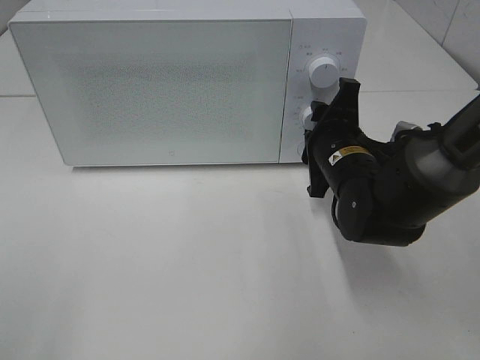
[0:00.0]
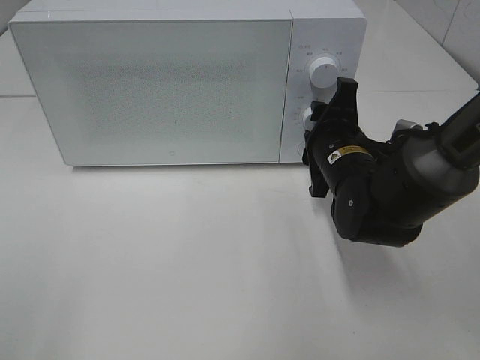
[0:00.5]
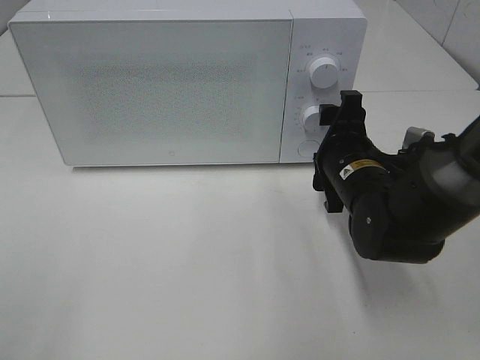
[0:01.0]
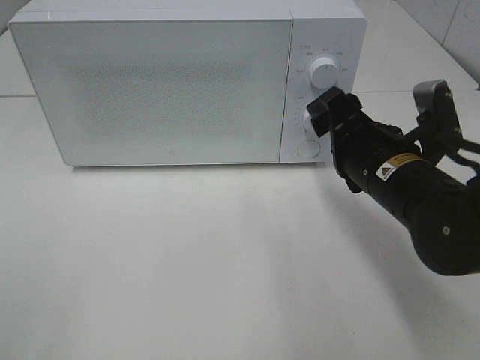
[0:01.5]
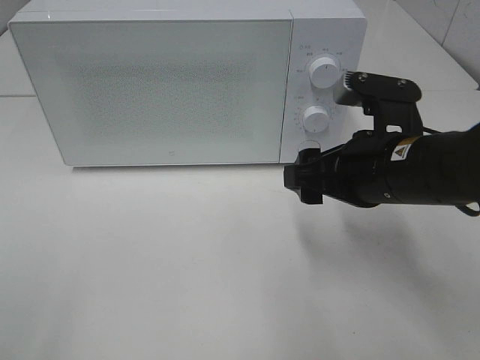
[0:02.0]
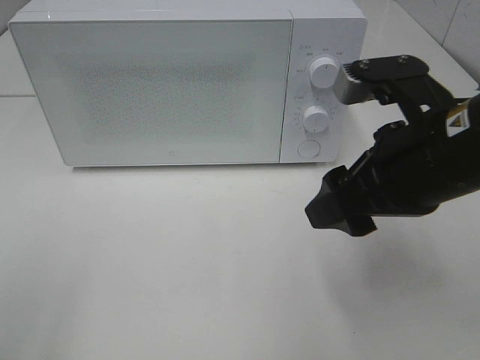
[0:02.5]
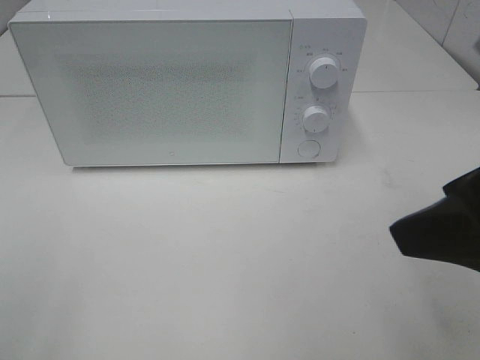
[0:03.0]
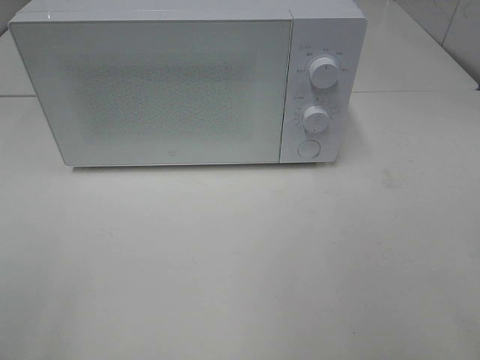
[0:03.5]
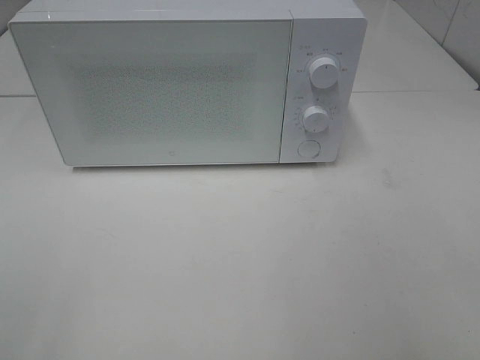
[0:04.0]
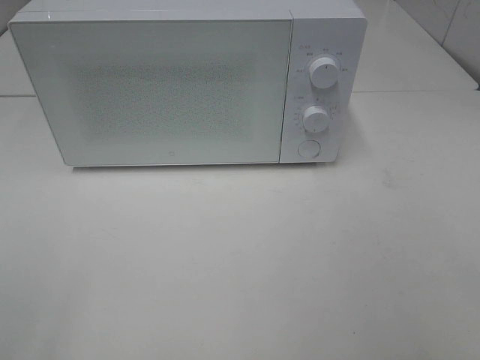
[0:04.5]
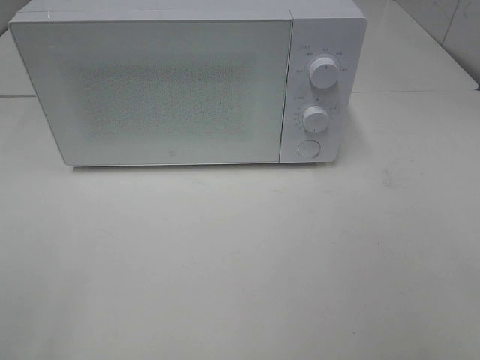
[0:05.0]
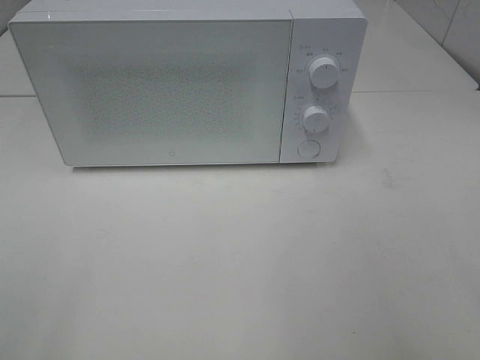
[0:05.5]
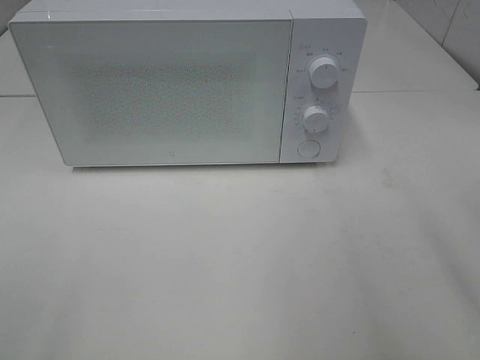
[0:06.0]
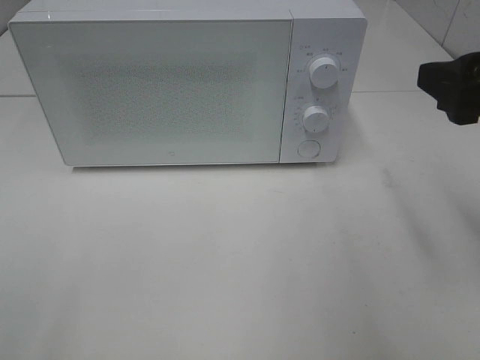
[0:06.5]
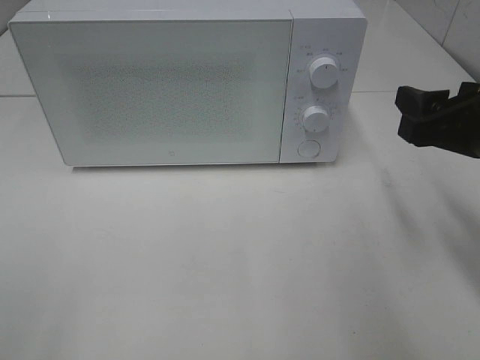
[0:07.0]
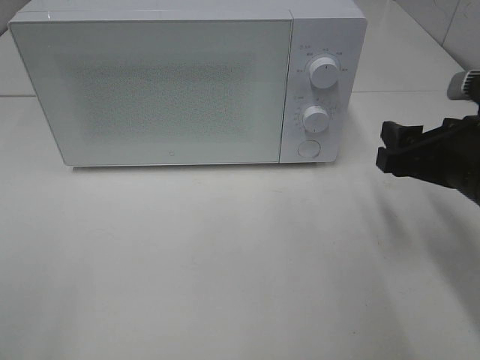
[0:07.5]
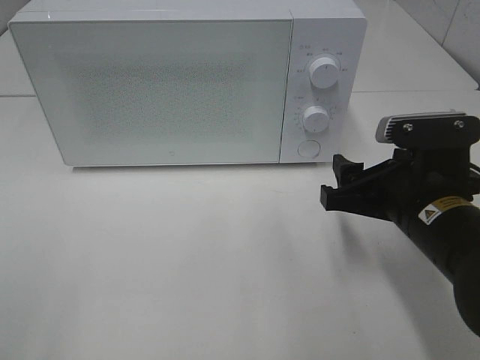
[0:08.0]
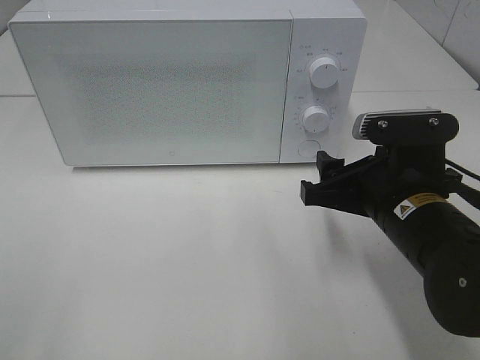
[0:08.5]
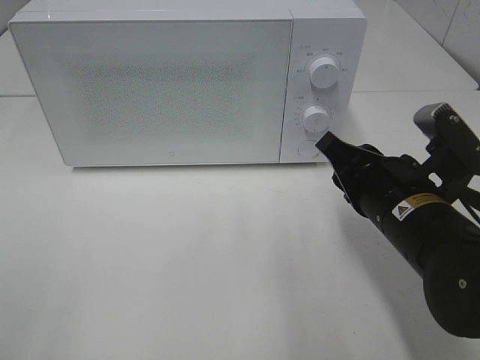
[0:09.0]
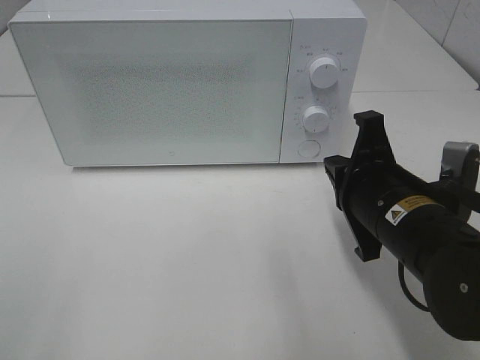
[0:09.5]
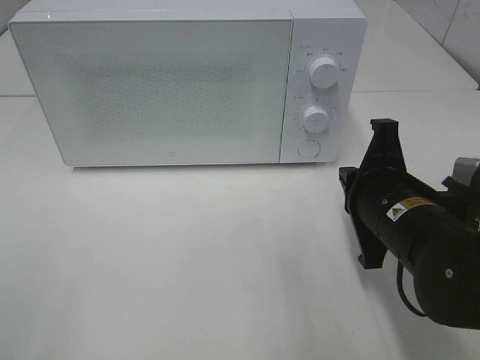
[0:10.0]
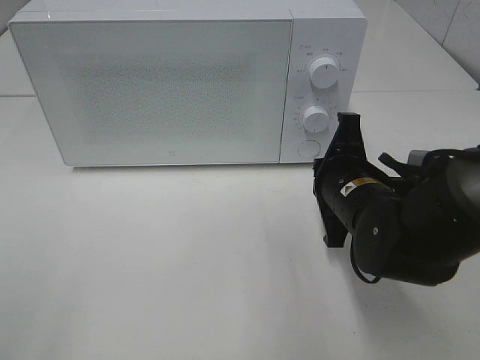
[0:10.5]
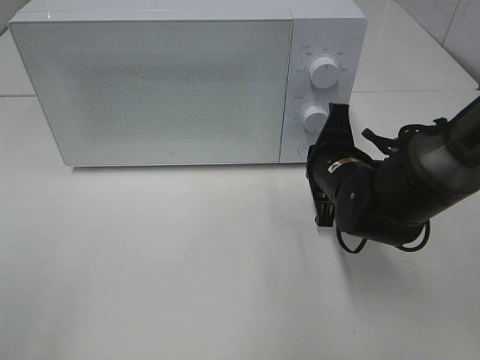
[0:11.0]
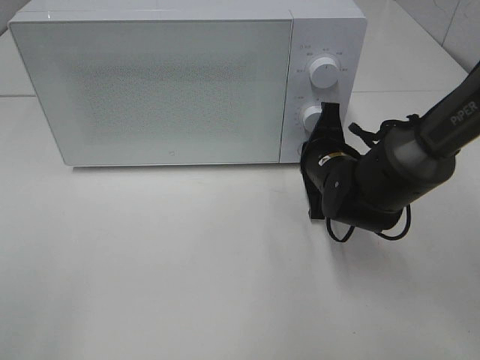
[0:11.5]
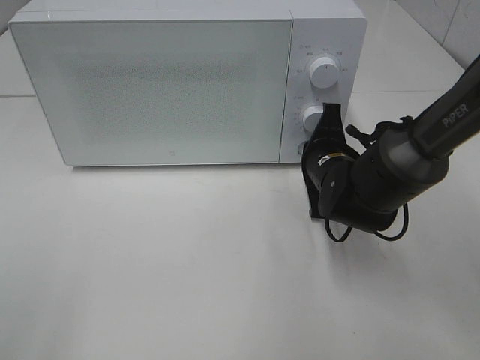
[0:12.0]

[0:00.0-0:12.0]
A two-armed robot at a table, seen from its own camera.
Task of the whole recording: Heat the burger.
0:00.0 to 0:02.0: The right gripper travels backward and upward by about 10 cm, and opens its fingers.
0:02.0 to 0:04.0: The right gripper goes approximately 30 cm backward, to the right and upward.
0:06.0 to 0:08.0: The right gripper travels downward, forward and to the left by roughly 20 cm.
0:08.0 to 0:10.0: The right gripper closes up.
0:10.0 to 0:12.0: The right gripper shifts about 15 cm forward and downward.

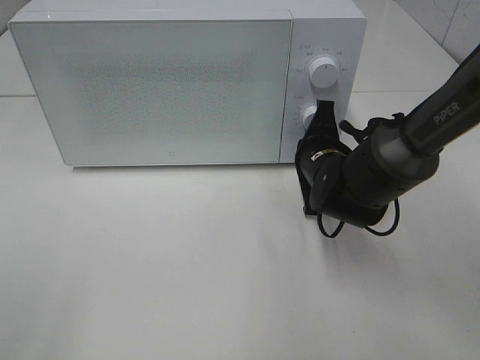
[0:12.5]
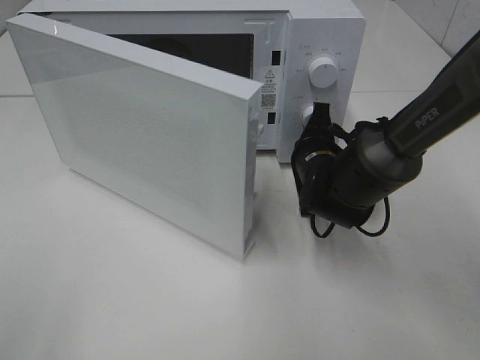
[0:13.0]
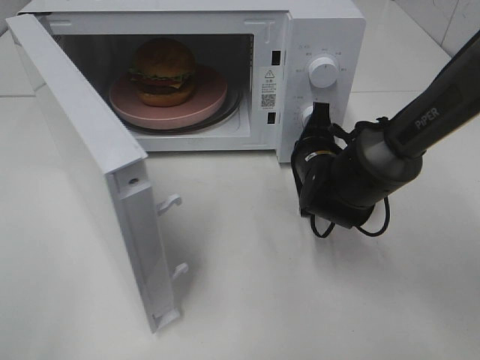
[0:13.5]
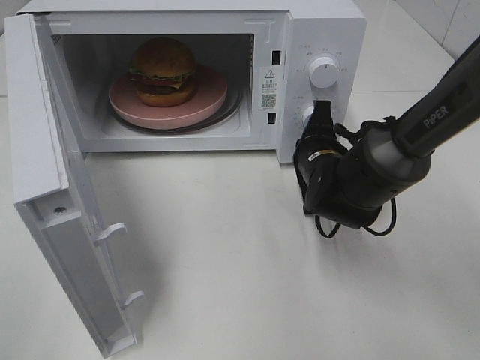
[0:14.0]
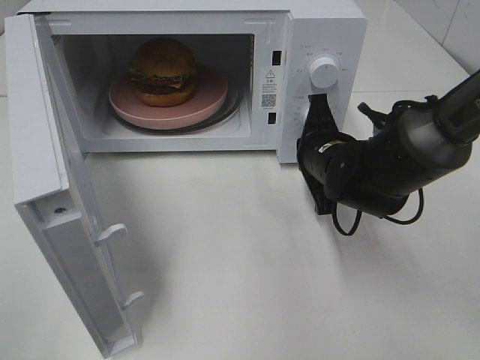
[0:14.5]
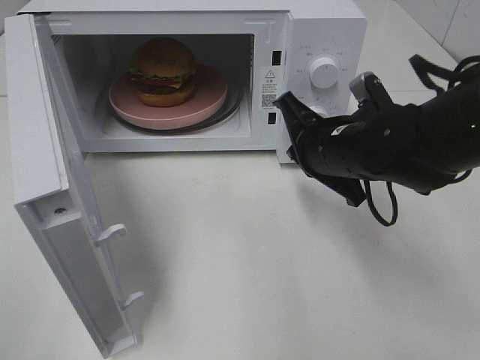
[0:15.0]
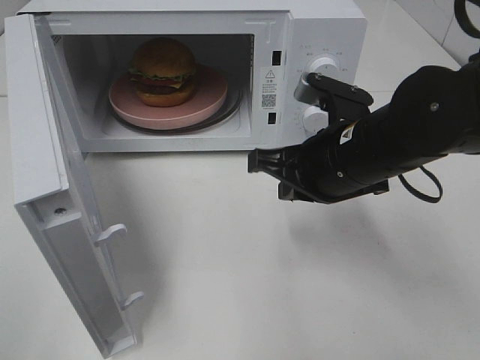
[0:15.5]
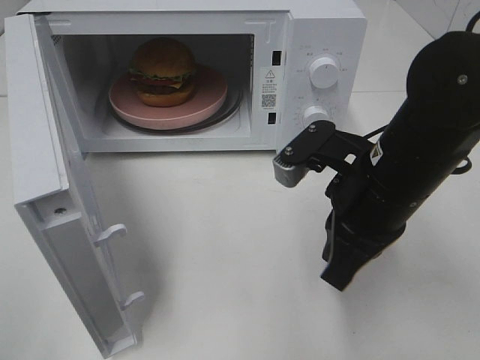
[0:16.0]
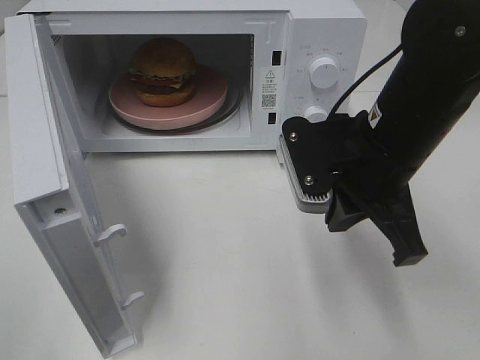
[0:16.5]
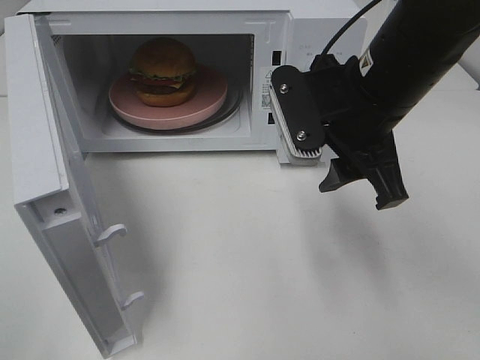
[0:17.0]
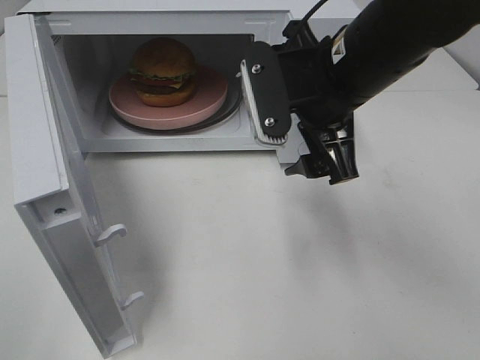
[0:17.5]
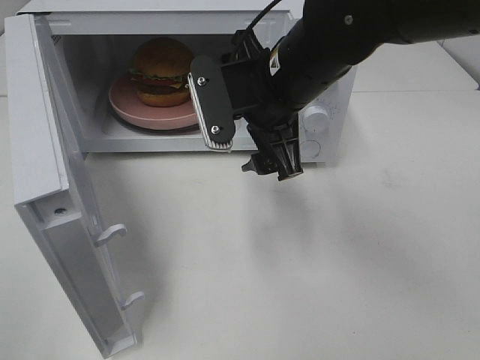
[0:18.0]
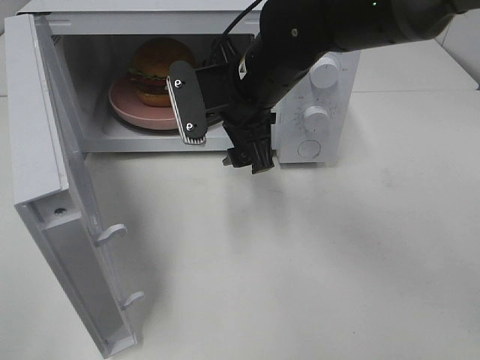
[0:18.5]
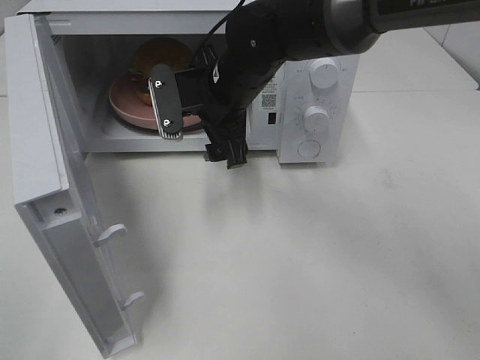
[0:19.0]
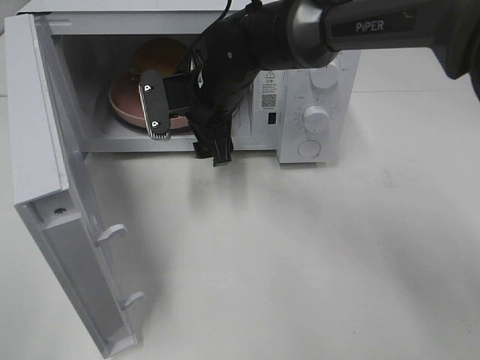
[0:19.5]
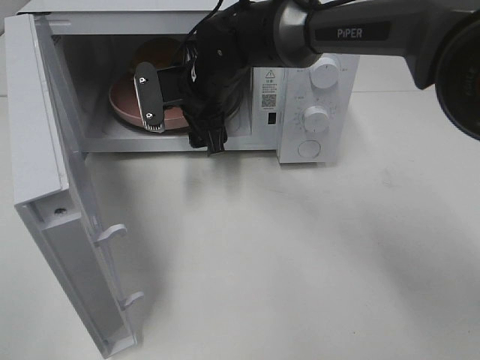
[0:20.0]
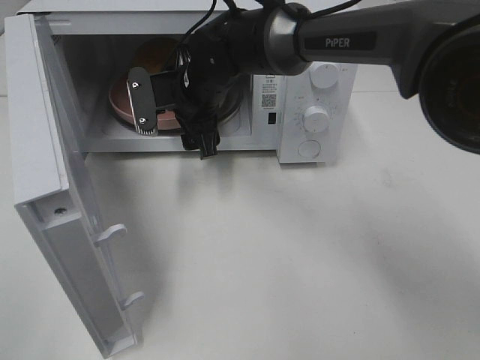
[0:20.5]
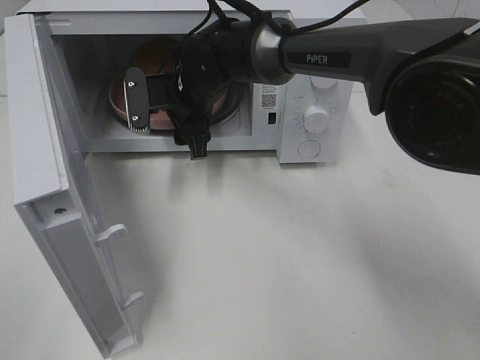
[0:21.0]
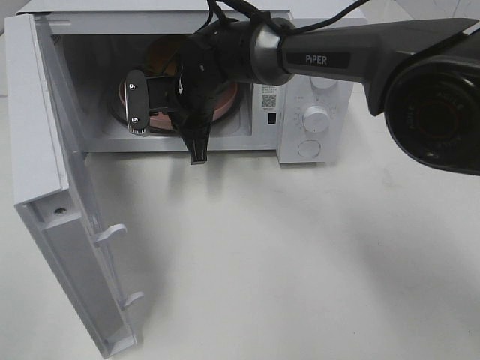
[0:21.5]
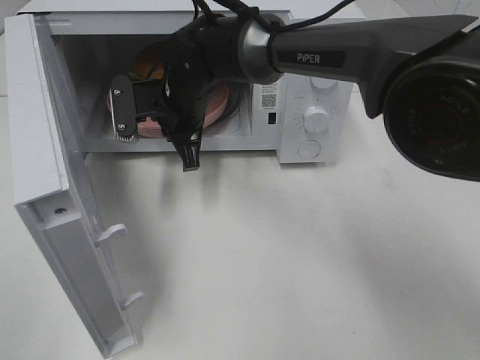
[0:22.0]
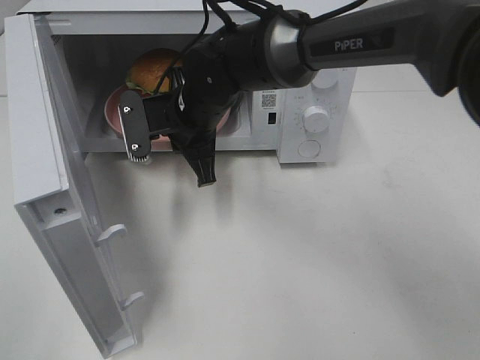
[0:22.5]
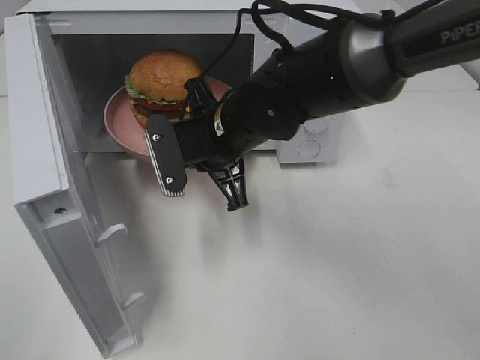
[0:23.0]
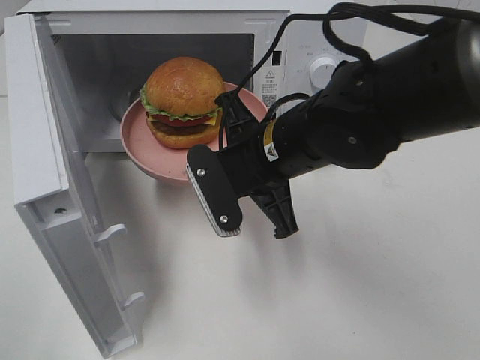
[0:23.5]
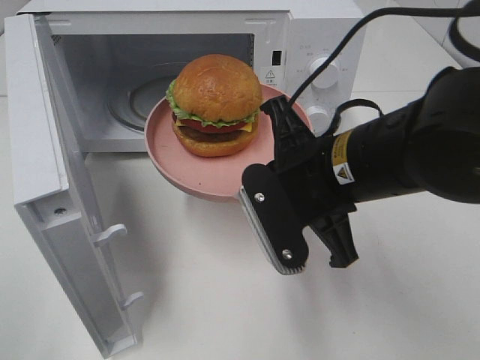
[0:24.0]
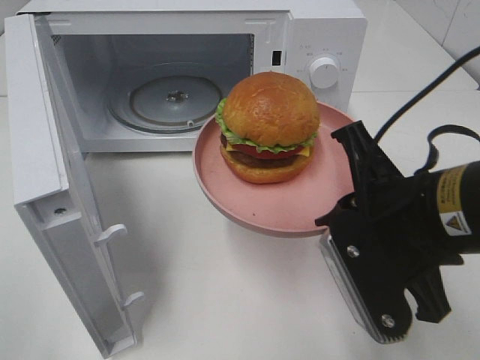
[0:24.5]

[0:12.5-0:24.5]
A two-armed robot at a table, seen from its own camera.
Task of the whole recording: Heat the burger.
Step, 0:12.5 to 0:14.5: Right hand: press the switch.
Step, 0:15.0 to 0:21.0: Right hand: grab the plate with the hamburger.
0:14.5 to 0:16.5: The right gripper is displaced upward and backward by roughly 15 cm.
0:16.5 to 0:18.5: The right gripper shifts some 15 cm to the left and forward, and opens up.
0:18.5 to 0:20.5: The right gripper heads forward and to the left, covering approximately 10 cm.
0:20.5 to 0:22.5: The right gripper closes its fingers.
0:22.5 to 0:24.5: The right gripper is displaced backward and to the right by some 30 cm.

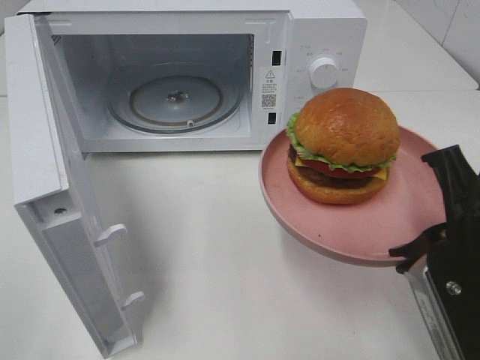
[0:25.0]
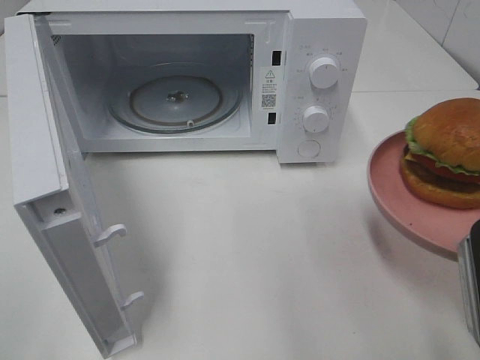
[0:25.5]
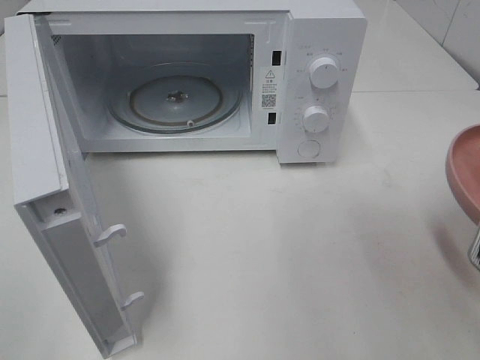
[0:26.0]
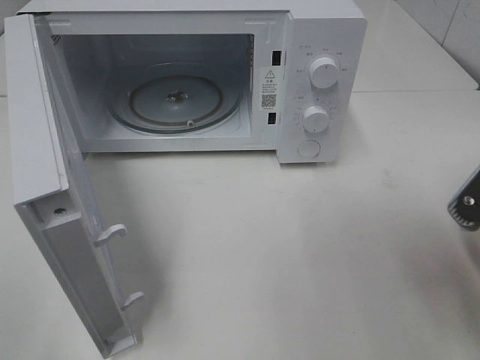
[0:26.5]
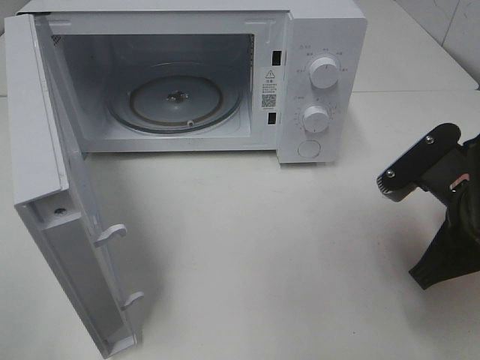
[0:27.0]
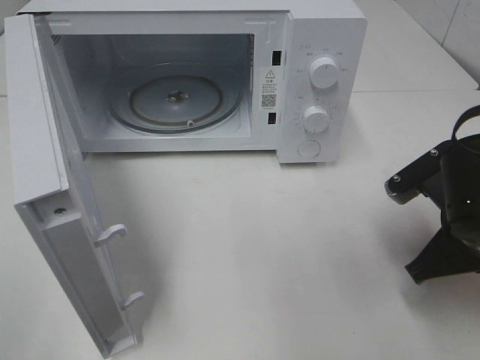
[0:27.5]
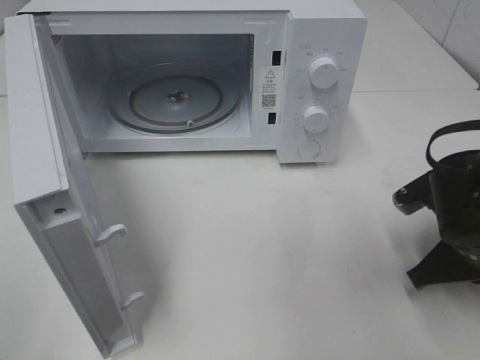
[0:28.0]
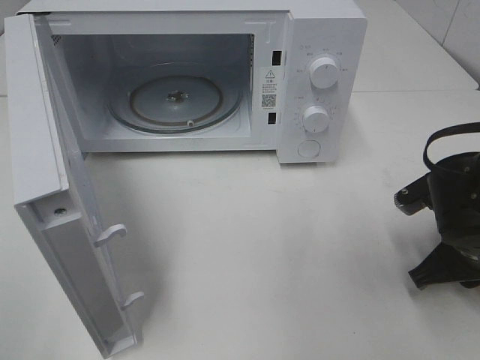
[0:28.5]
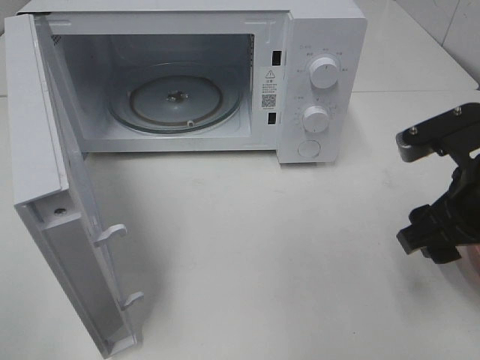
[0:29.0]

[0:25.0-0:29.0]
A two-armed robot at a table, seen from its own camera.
Task of the whole recording: Heat the burger.
Step, 0:25.0 to 0:28.5: Right hand: place the plate on the table.
0:25.0 to 0:27.0: The right gripper is displaced forward by some 5 cm.
0:27.0 to 0:29.0: The right gripper travels downward and back again, approximately 5 cm each way, and opens.
